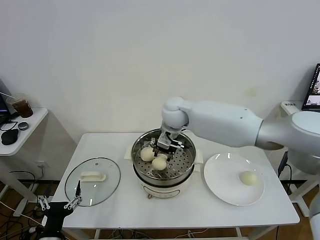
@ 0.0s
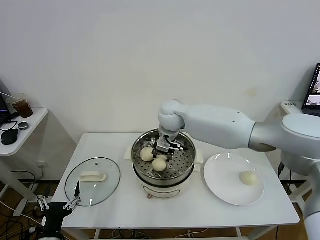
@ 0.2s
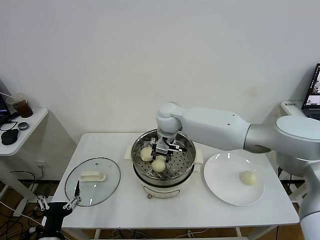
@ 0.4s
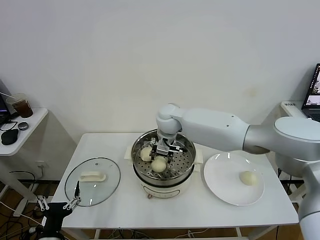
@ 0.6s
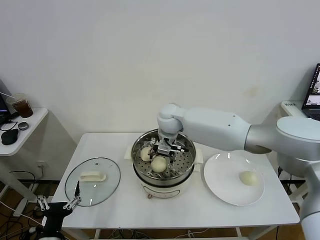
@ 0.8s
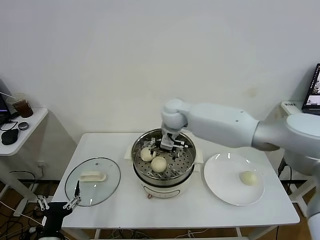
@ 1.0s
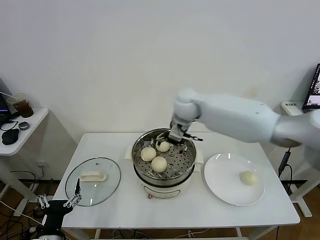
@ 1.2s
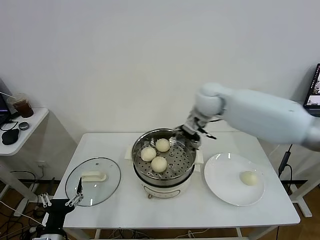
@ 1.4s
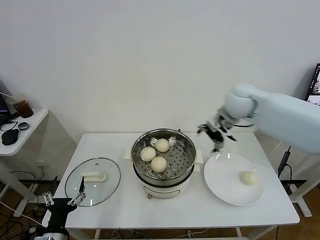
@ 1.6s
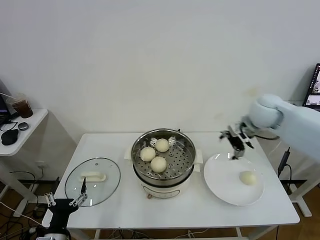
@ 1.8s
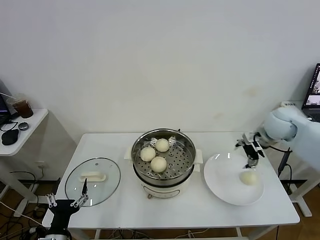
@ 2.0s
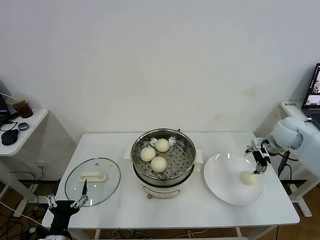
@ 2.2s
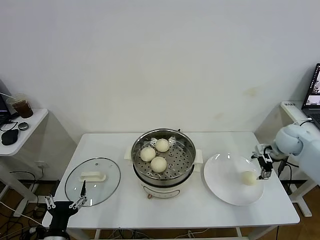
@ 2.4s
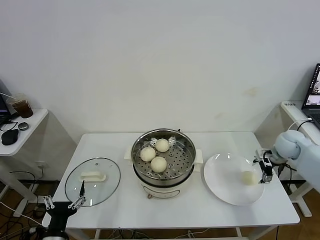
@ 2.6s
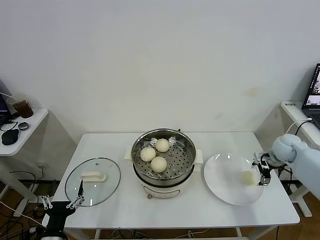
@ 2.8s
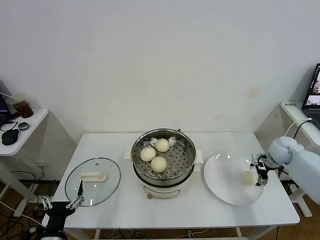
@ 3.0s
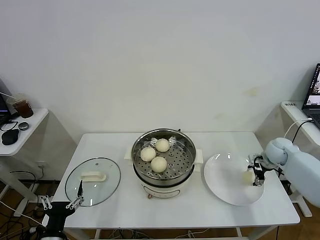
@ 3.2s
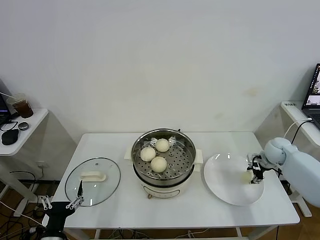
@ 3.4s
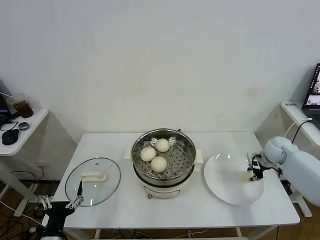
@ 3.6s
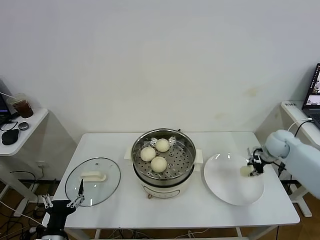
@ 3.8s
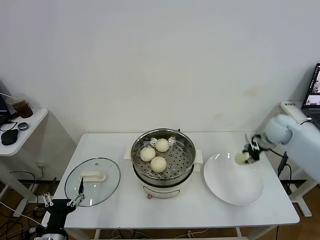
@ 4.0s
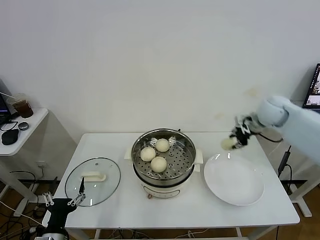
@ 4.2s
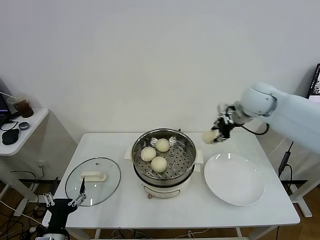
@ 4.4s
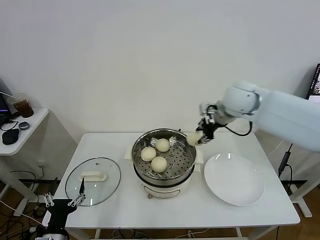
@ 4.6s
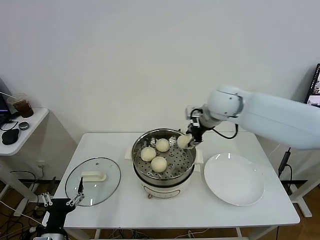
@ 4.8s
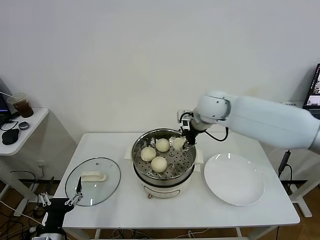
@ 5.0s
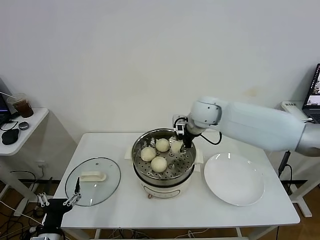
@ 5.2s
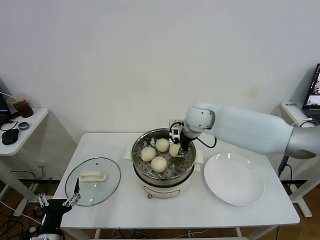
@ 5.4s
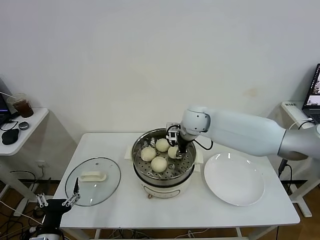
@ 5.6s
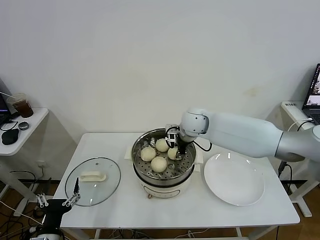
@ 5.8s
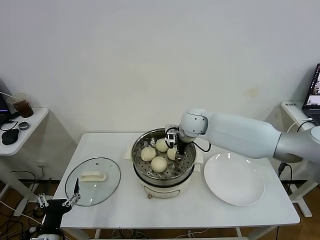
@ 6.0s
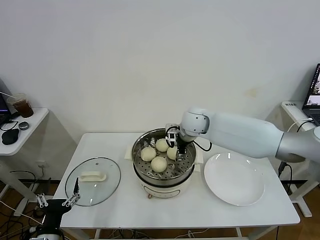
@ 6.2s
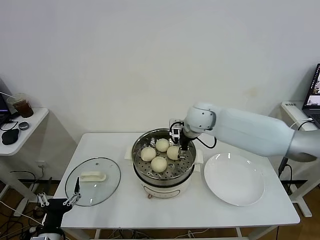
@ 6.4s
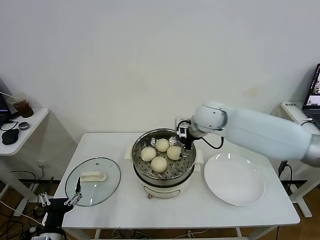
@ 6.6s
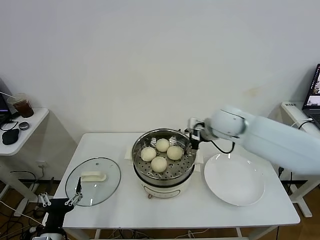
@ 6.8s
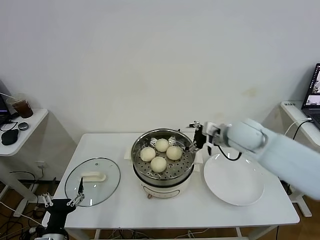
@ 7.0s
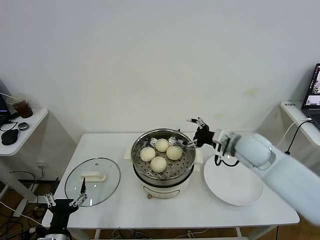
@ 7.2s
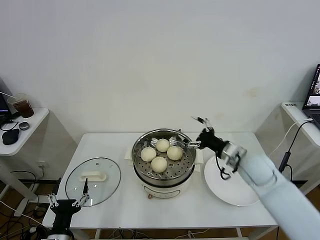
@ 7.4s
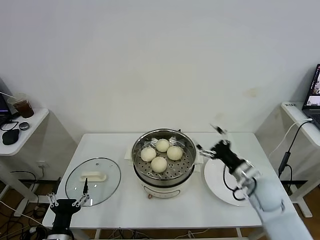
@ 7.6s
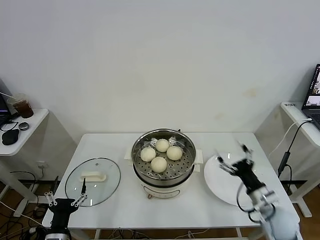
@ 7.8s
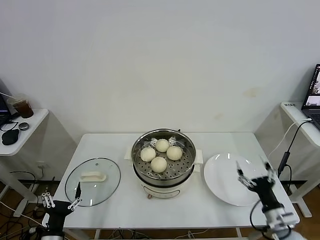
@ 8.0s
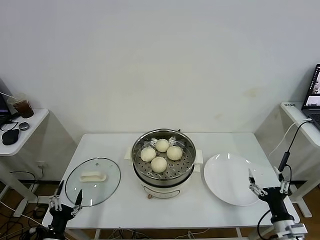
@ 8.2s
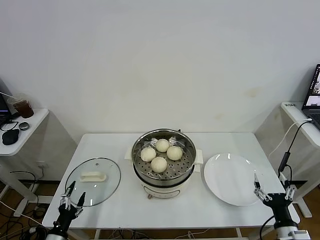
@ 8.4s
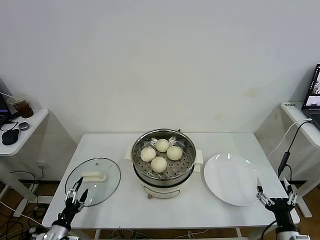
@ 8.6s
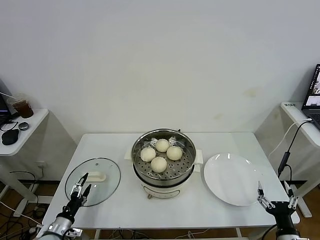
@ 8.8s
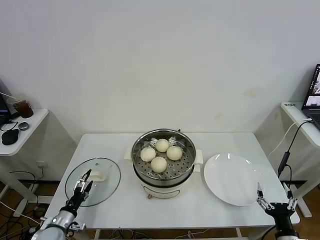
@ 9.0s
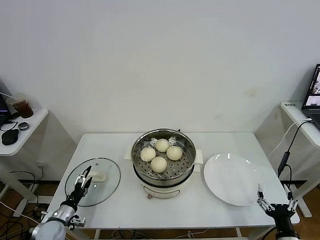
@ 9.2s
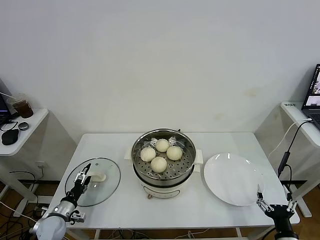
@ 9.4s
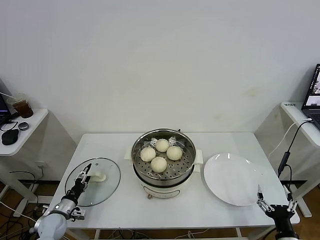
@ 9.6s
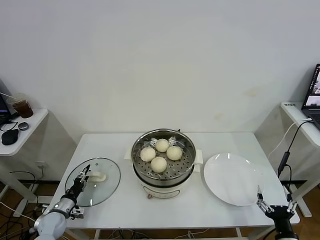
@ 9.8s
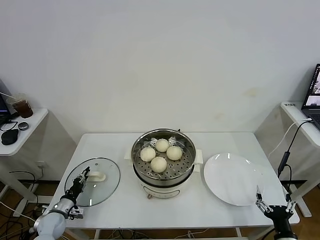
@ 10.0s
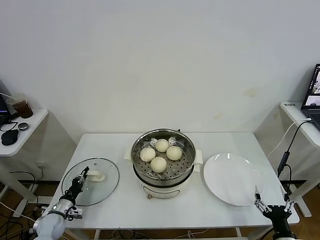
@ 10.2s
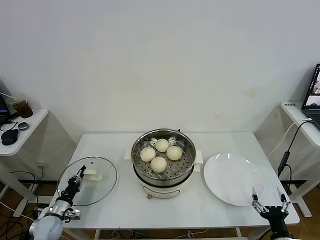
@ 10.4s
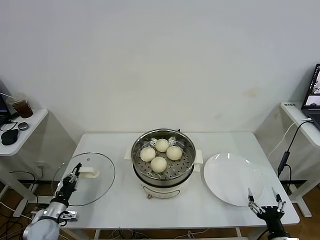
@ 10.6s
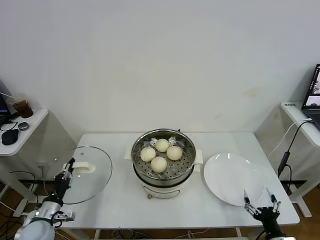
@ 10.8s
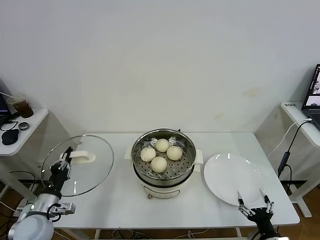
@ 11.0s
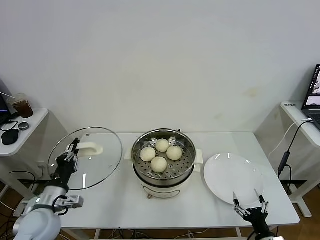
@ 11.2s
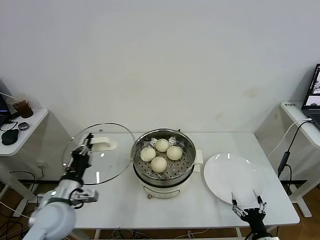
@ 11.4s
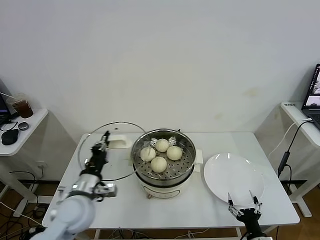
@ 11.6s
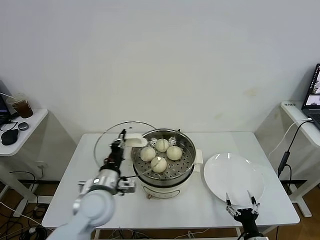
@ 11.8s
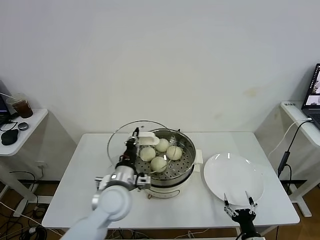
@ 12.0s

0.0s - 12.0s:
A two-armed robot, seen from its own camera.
Task of the whole recording: take steamed baozi put them in steamer.
Step, 1.2s - 3.4s: Grasp the baozi in the plate with right gripper.
Step, 3.8s - 6.8s: Place the baozi on the steamer with right gripper.
Step, 7.0s - 10.2s: Grasp the pot lid with left gripper.
0.0s - 1.6s: The right gripper is displaced to the right by approximately 20 cm, and opens up.
1.6s - 3.0s: The right gripper moves to the right and downward, approximately 30 cm.
3.0s - 4.4s: The right gripper goes some 25 cm upward and to the left, and closes its fingers.
4.4s - 6.0s: The right gripper goes some 20 cm to the left and downward.
6.0s - 7.6s: The right gripper goes roughly 30 cm to the right, backward and downward, and opens its fingers.
7.6s - 9.0s: The left gripper travels forward, downward and to the left by some 15 cm. The right gripper heads backward and downward, covering approximately 25 cm.
9.0s - 10.4s: The left gripper travels forward by roughly 5 cm, and closes.
10.4s - 12.0s: The right gripper heads to the left and downward, covering some 10 cm, while the left gripper heads to the right and upward, covering some 35 cm.

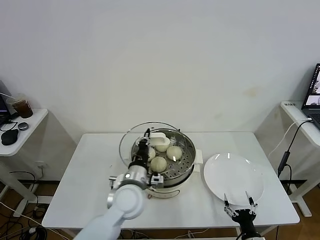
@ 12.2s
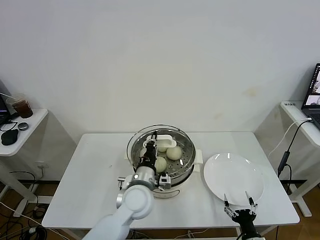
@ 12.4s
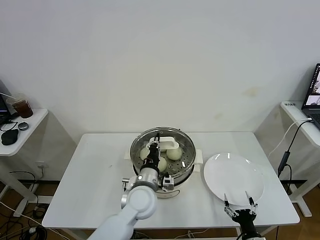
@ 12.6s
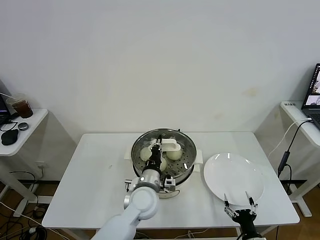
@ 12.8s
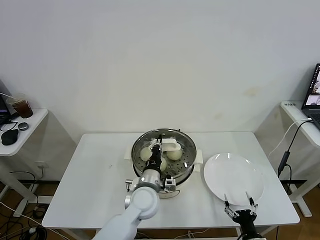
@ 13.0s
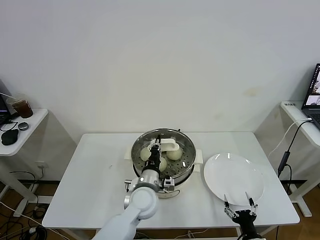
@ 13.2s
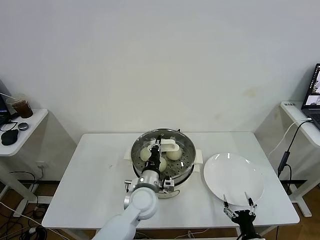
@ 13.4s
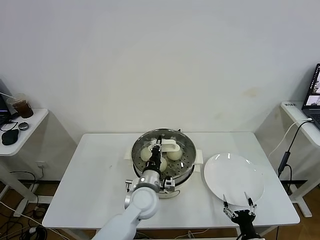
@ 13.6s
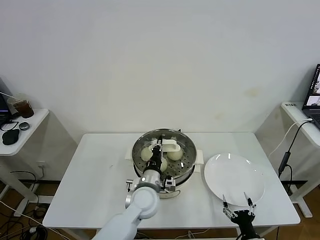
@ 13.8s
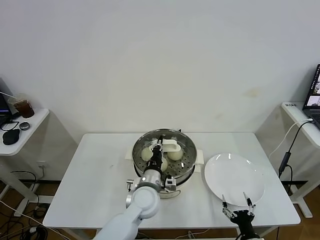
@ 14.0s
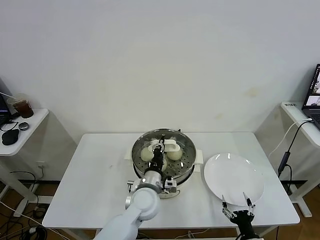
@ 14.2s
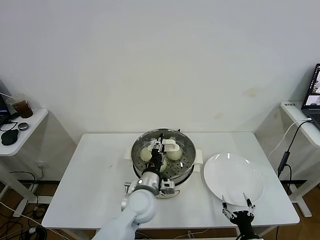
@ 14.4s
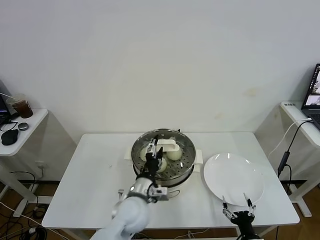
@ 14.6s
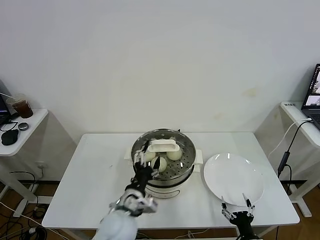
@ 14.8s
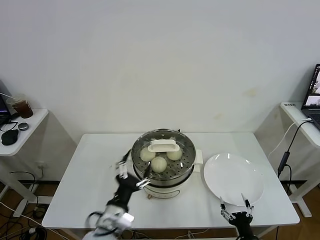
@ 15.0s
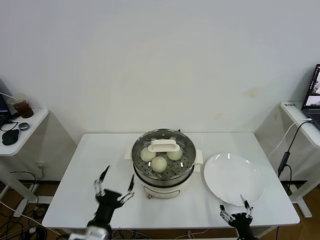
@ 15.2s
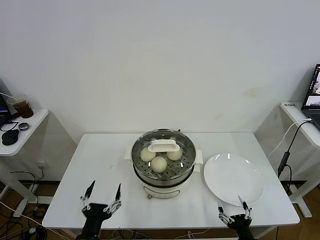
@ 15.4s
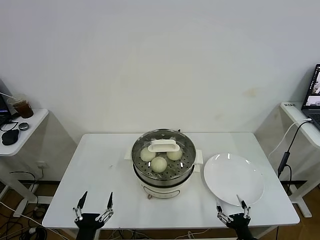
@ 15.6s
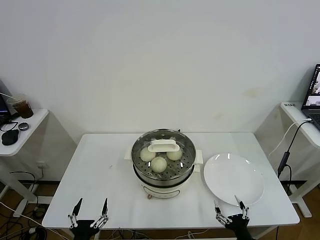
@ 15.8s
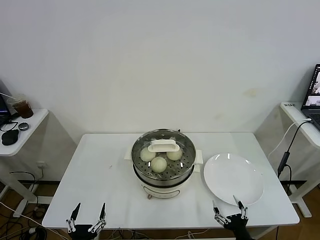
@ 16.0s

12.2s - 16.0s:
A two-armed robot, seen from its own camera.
Task of the whole recording: take steamed baozi put them in steamer.
Step, 12.2s - 15.0s: Place the pot lid on the steamer with left gripper.
12.2s - 13.4s: The left gripper is displaced downward and to the right by about 5 cm.
13.4s - 14.8s: The left gripper travels backward by approximately 5 cm, and opens its fingers.
14.8s - 16.0s: The left gripper is displaced backward, to the left and downward by about 25 cm.

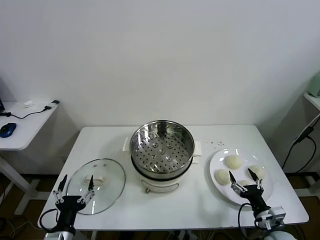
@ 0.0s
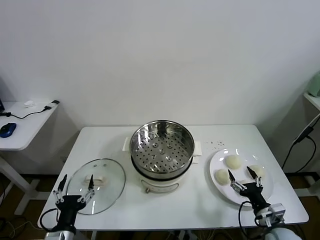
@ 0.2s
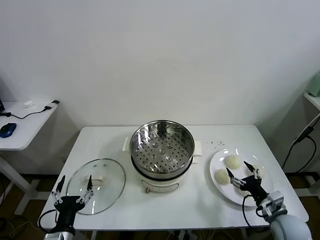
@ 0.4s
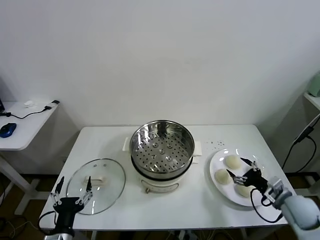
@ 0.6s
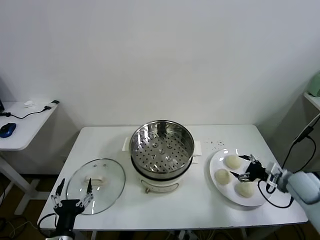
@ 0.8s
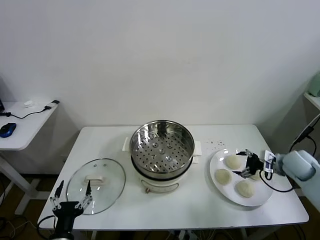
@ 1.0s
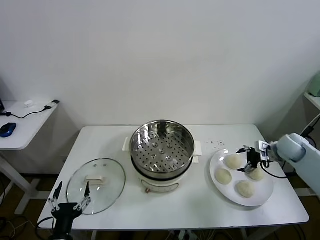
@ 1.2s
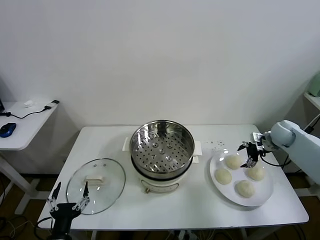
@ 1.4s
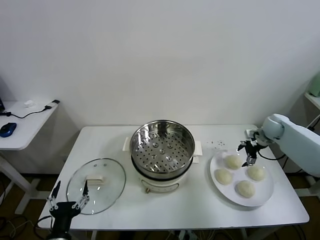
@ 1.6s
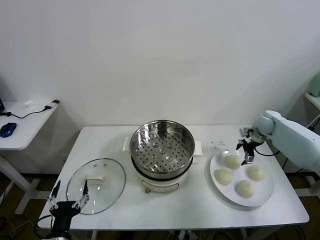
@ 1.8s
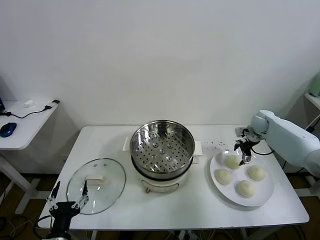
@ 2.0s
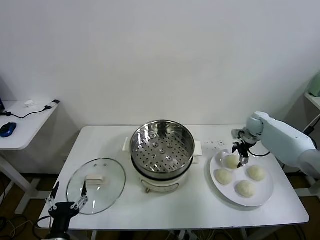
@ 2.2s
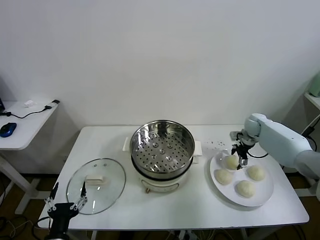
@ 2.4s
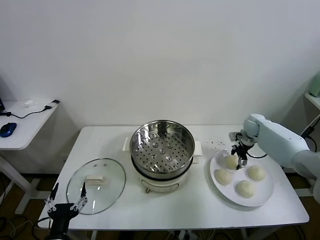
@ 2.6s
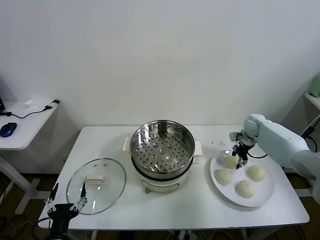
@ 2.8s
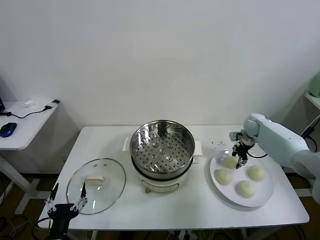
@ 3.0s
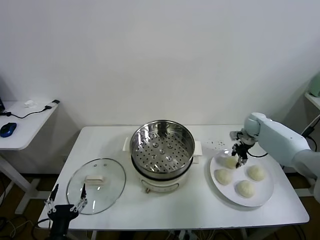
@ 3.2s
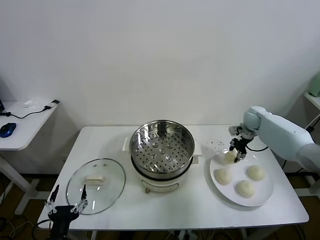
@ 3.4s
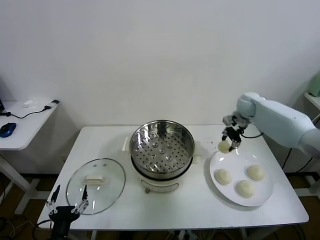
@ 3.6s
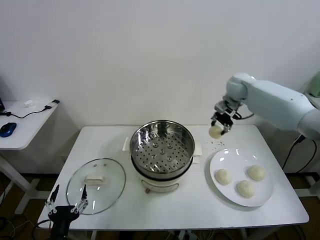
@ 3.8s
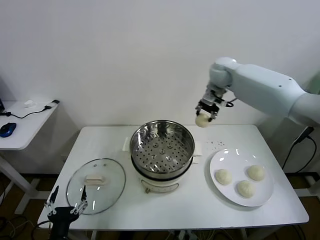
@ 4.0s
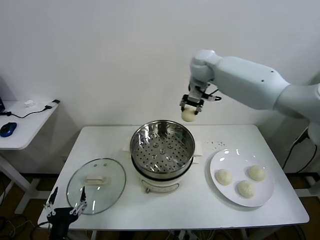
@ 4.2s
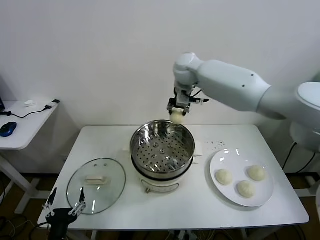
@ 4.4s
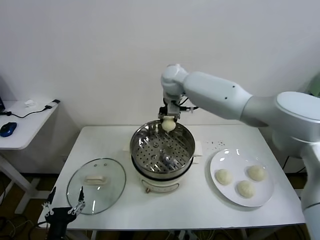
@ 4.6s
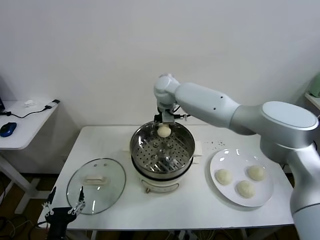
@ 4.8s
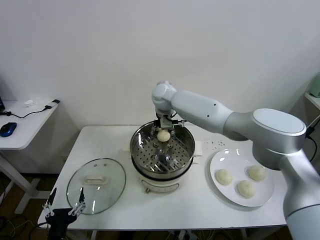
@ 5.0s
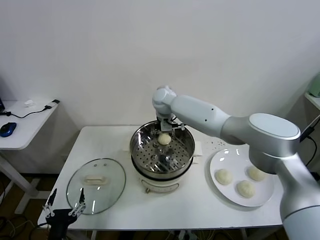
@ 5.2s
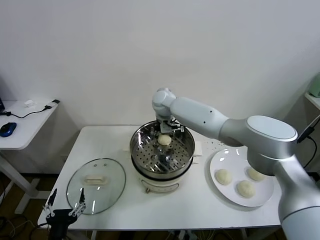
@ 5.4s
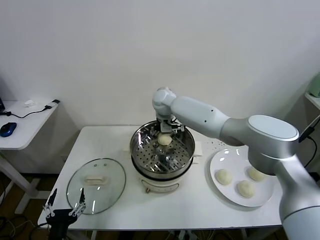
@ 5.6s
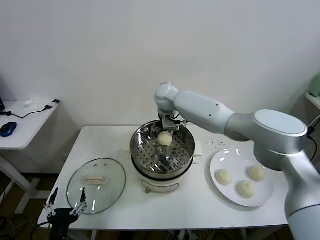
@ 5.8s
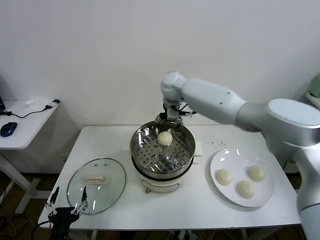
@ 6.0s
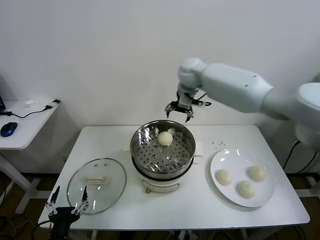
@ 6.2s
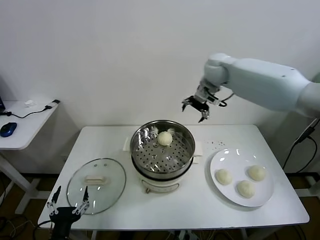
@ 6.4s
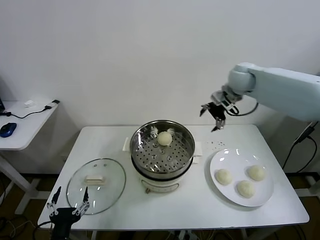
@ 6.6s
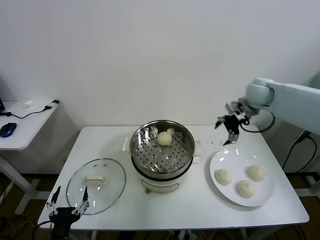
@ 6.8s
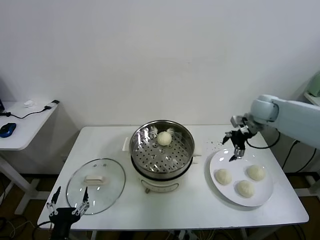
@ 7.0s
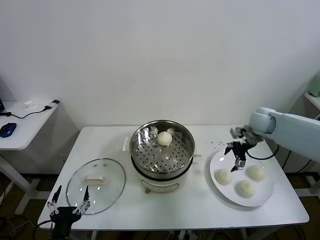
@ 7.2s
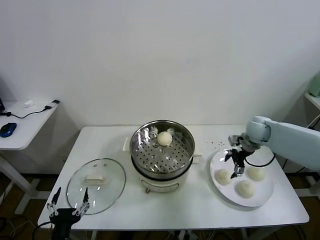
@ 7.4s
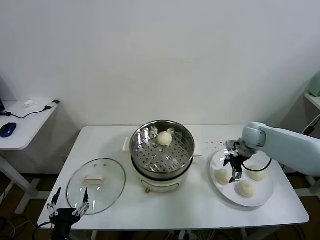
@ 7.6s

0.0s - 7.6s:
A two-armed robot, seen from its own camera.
Task of the whole recording: take steamed baozi put them in steamer.
Step, 0.0s - 2.6s: Grasp the baozi in the plate with right gripper.
Step, 2.8s - 5.8s: Place the baozi on the steamer with right gripper.
1.6s - 3.0s: The right gripper shifts by about 5 cm, and closes.
3.0s - 4.6s: The right gripper is displaced to the left and upward by roughly 40 cm.
4.6s - 6.0s: The right gripper goes downward and returns, approximately 10 cm each way, and opens.
6.0s - 7.6s: The right gripper travels to the right and downward by approximately 35 cm.
